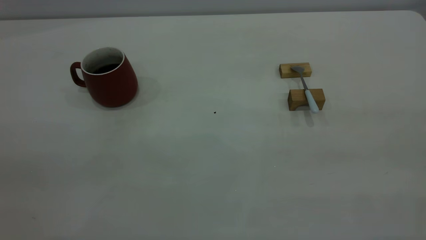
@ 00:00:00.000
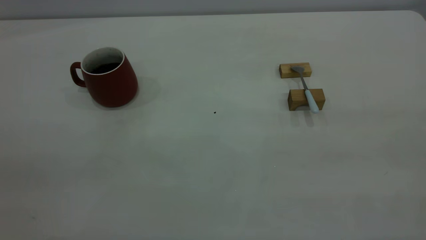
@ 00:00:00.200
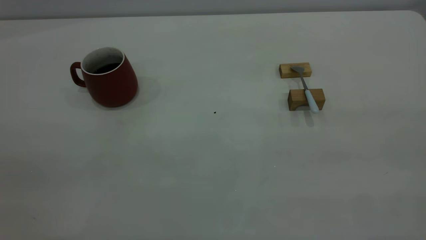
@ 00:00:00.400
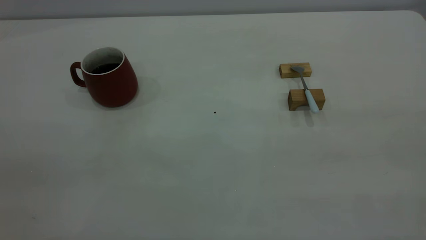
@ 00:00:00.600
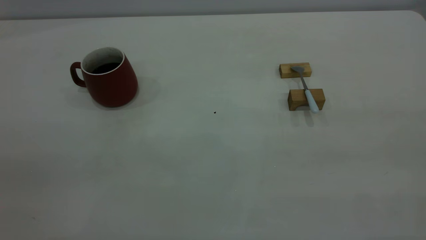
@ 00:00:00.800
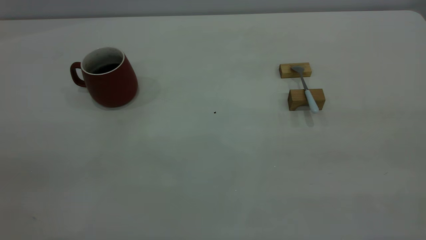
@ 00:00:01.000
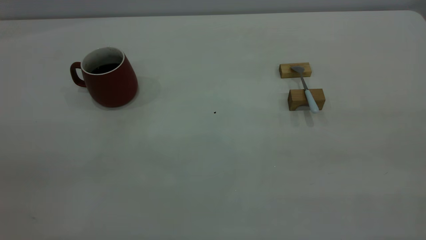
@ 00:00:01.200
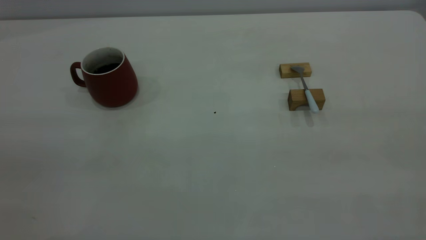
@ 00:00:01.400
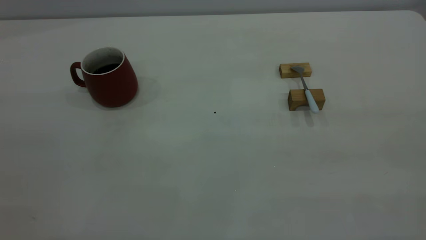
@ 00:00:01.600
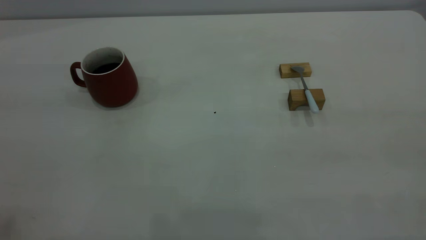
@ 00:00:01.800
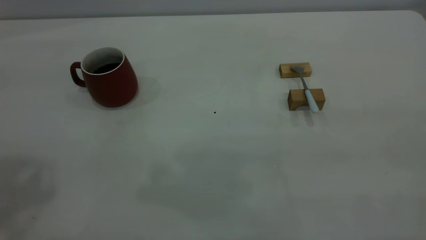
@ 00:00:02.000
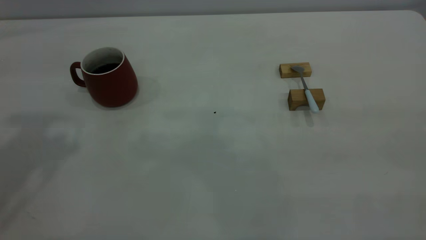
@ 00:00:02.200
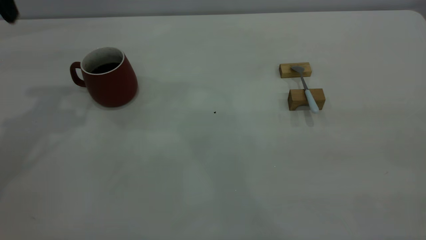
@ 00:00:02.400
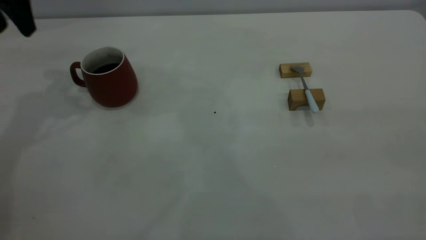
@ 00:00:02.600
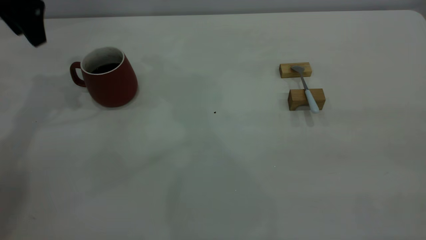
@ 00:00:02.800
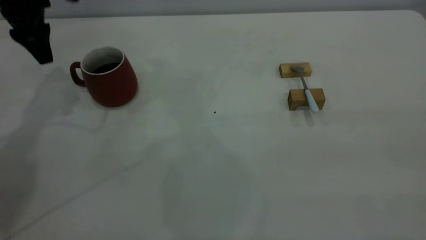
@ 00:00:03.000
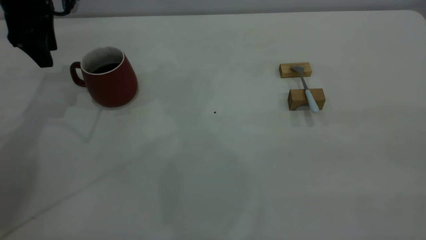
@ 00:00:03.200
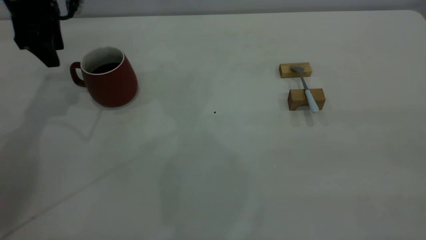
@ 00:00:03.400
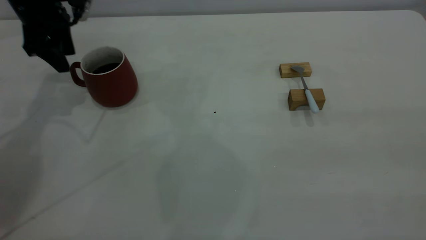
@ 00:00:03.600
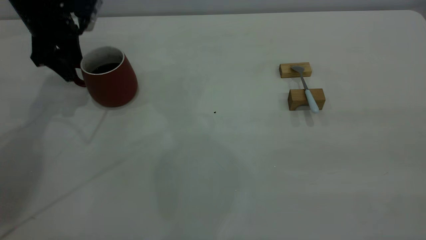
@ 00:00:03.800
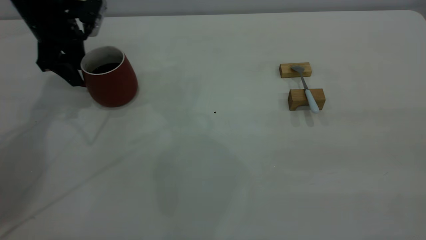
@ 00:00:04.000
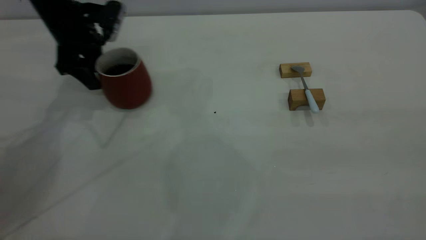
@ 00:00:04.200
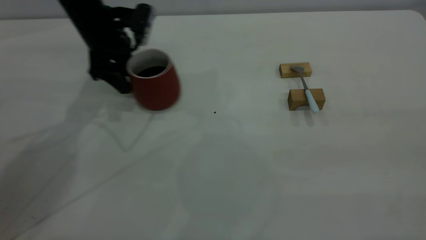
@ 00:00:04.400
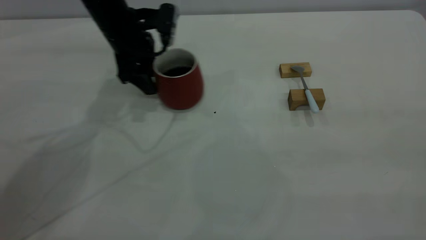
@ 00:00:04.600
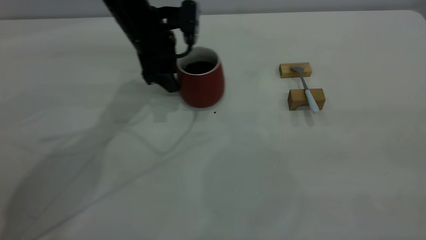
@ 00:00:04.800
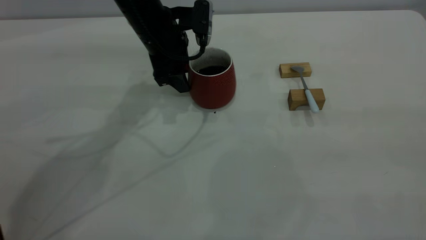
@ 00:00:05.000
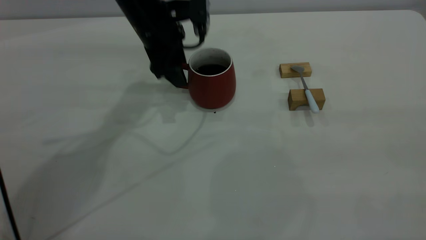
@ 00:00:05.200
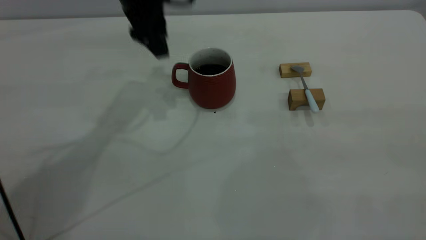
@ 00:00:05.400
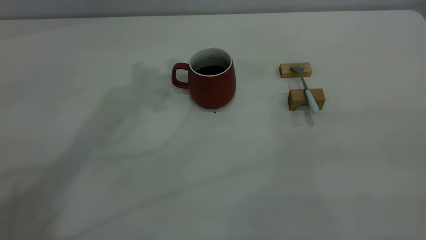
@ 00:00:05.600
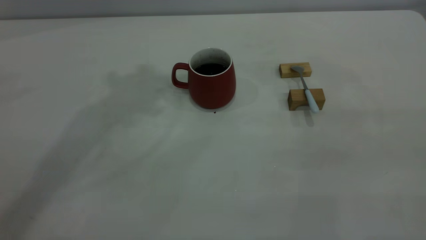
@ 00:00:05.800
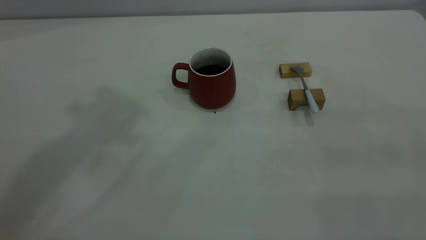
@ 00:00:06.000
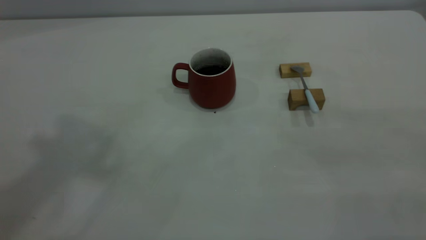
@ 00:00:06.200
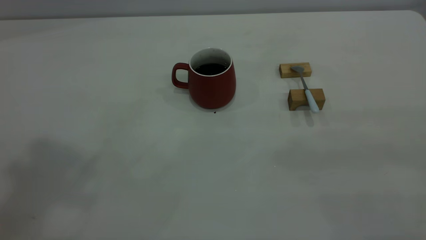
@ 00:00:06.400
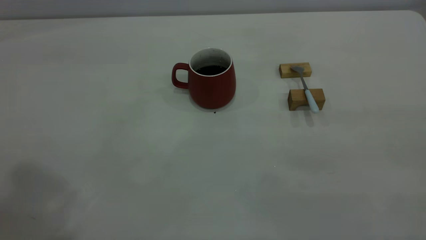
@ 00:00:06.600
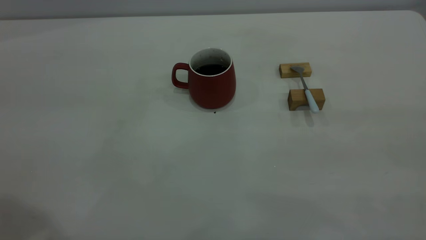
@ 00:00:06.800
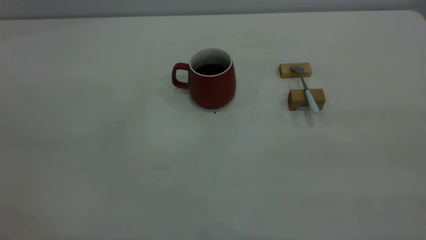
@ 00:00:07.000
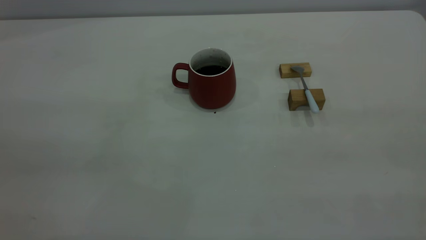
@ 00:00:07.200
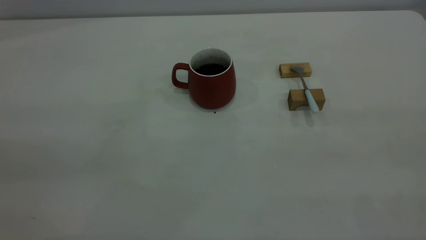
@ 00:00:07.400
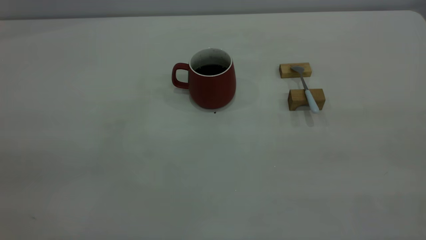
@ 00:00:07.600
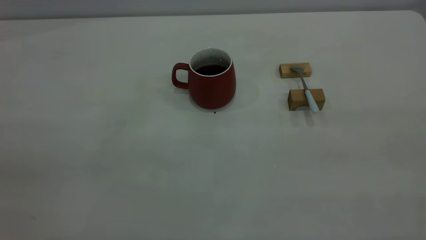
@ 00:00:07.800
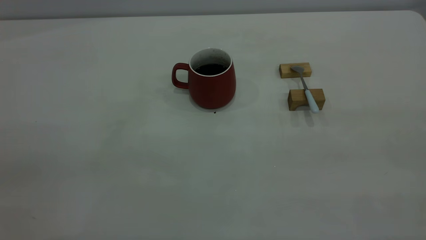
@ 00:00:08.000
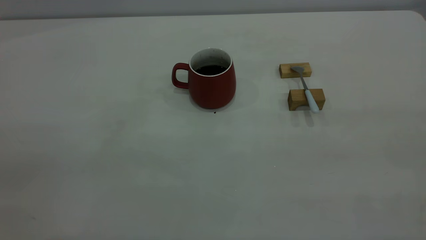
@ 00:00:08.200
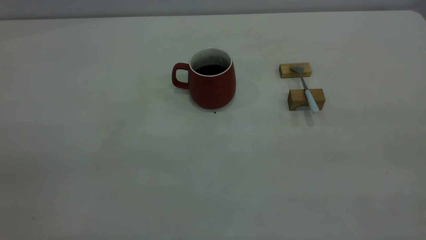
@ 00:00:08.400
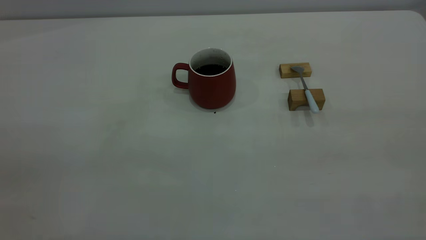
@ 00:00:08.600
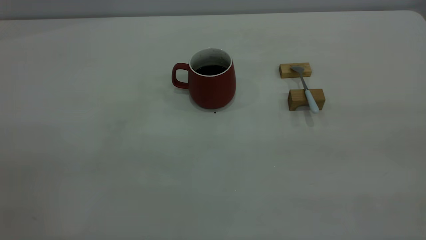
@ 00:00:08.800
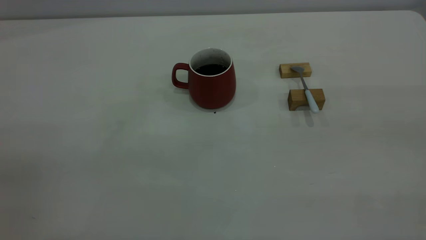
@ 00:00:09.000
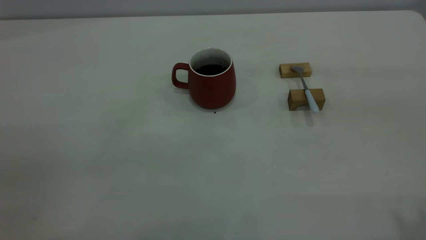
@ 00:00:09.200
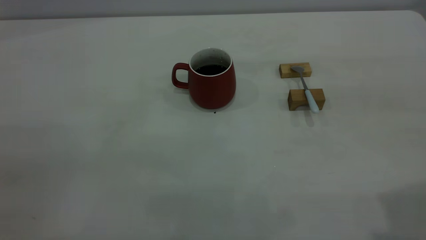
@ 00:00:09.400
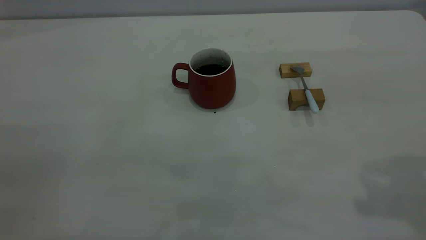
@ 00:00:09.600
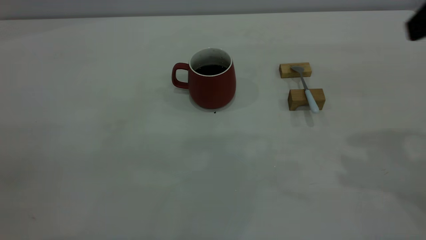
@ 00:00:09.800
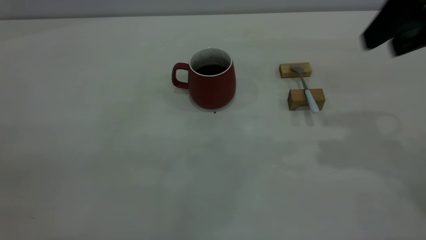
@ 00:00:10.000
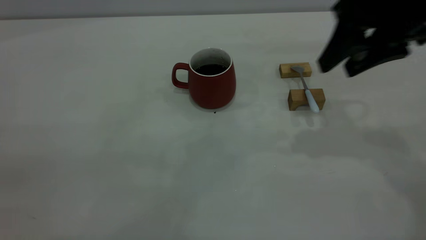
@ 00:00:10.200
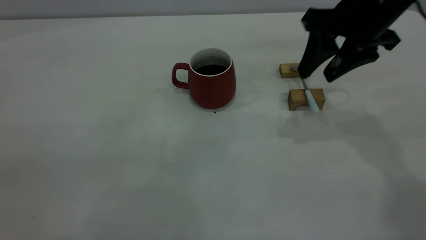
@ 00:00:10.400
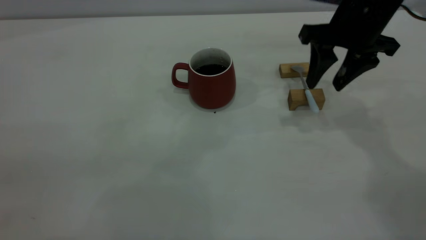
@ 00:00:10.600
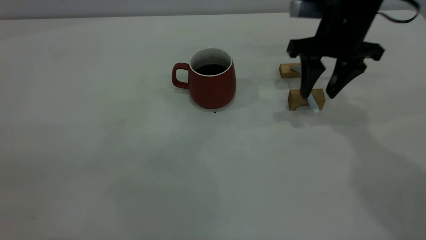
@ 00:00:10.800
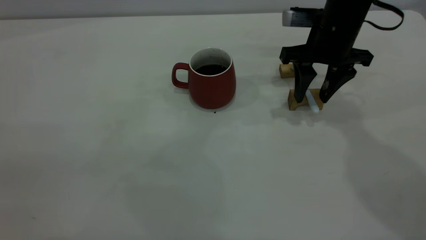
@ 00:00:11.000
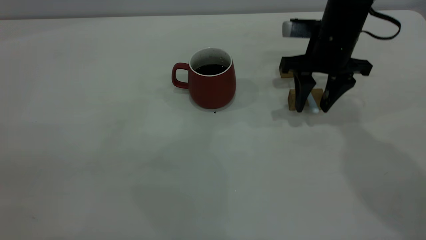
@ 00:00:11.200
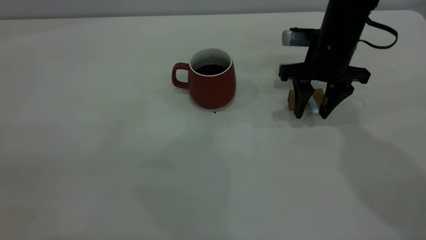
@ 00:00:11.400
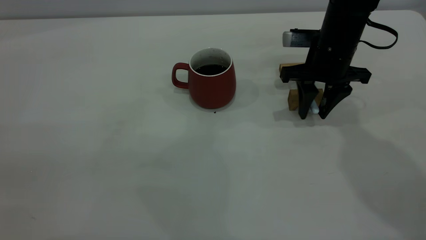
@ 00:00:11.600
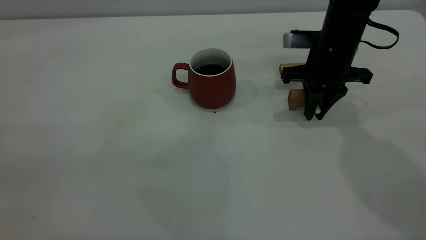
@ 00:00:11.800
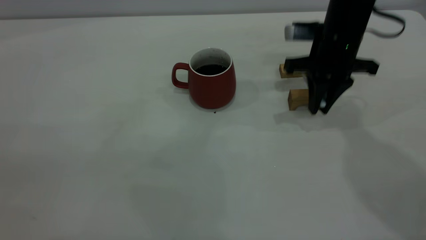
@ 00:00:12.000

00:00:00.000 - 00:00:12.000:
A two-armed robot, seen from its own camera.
Step, 00:00:00.000 - 00:00:05.200: Move the cup with coffee to the center of view.
00:00:01.600 - 00:00:03.000: The left gripper travels forward and downward by about 50 cm.
00:00:03.000 - 00:00:04.400: The left gripper moves to the right and downward, about 15 cm.
00:00:04.400 - 00:00:06.000: The left gripper goes roughly 40 cm upward and backward.
00:00:09.000 - 00:00:10.400: The right gripper moves forward and downward, approximately 35 cm, and opens.
00:00:10.400 - 00:00:12.000: The right gripper goes some 5 cm downward, and closes up.

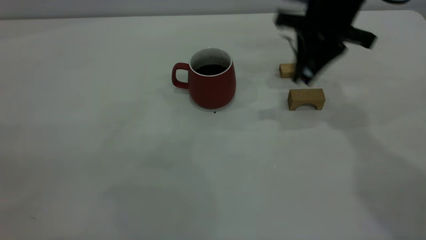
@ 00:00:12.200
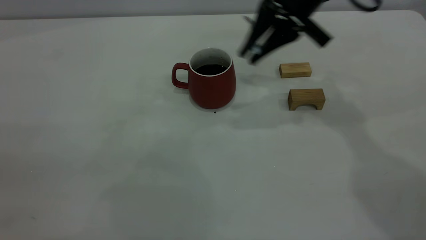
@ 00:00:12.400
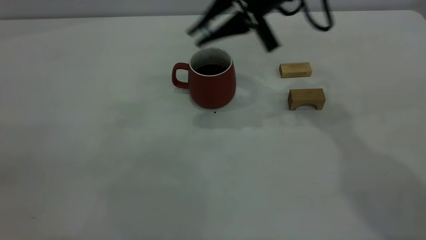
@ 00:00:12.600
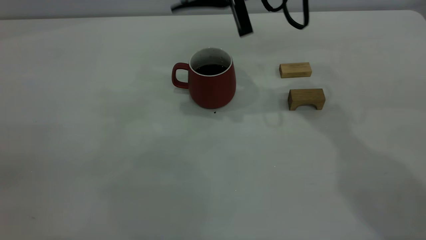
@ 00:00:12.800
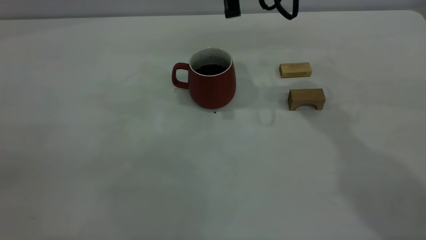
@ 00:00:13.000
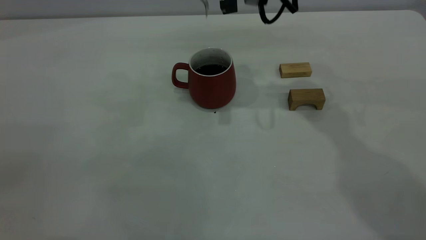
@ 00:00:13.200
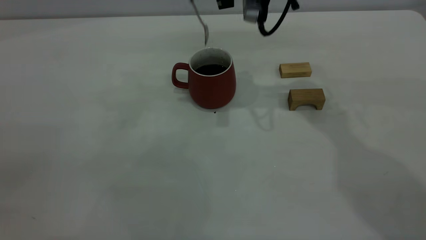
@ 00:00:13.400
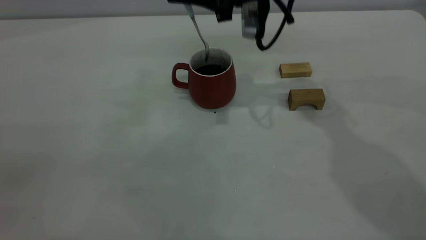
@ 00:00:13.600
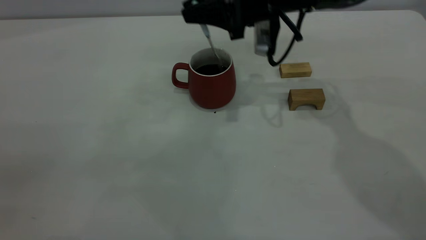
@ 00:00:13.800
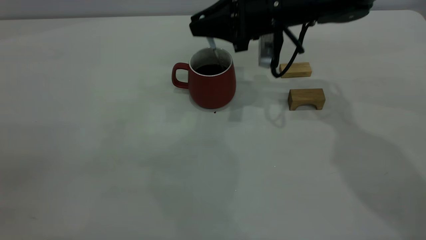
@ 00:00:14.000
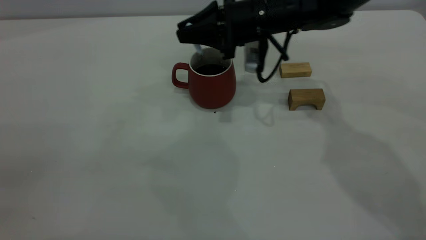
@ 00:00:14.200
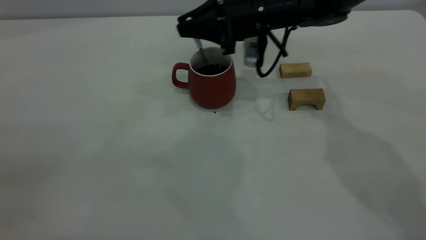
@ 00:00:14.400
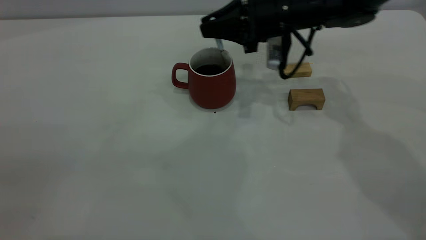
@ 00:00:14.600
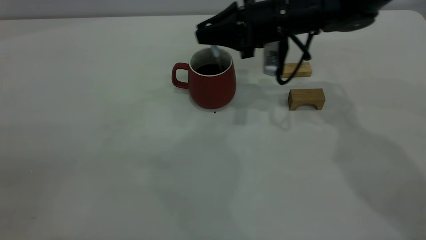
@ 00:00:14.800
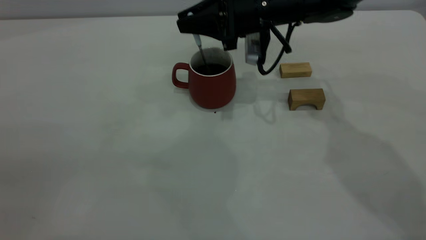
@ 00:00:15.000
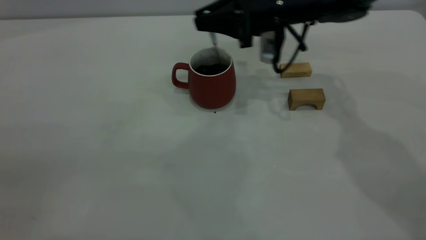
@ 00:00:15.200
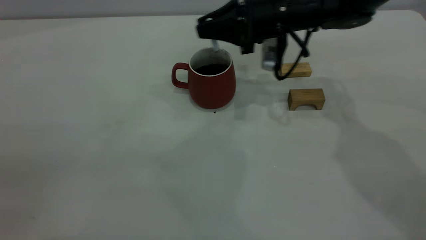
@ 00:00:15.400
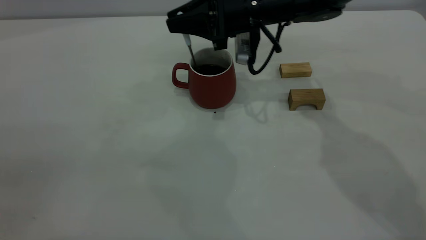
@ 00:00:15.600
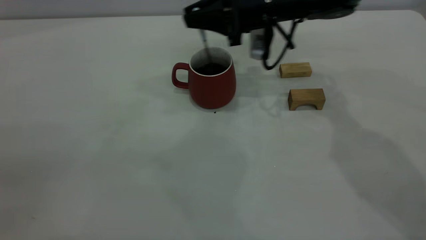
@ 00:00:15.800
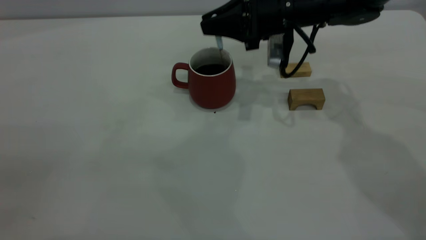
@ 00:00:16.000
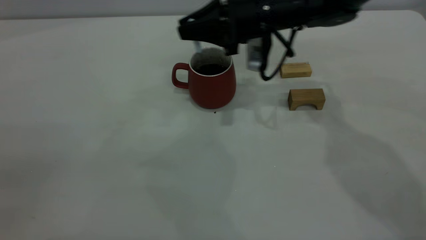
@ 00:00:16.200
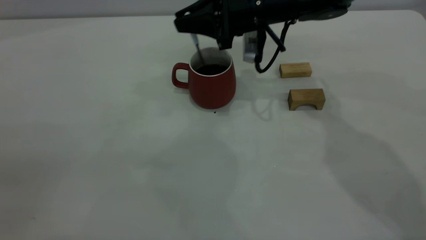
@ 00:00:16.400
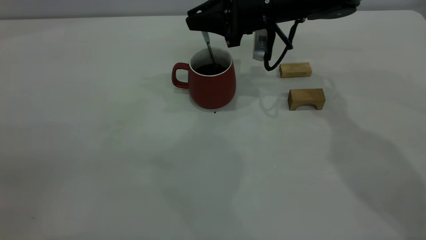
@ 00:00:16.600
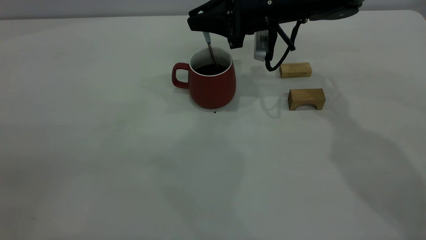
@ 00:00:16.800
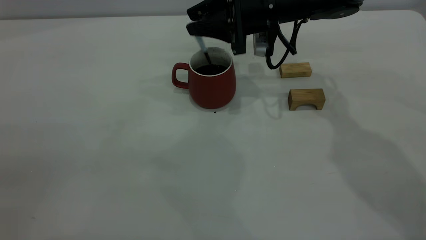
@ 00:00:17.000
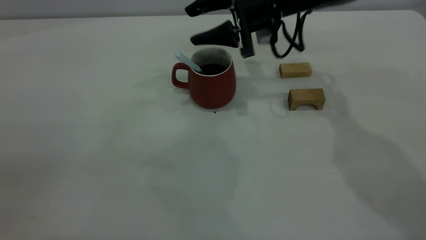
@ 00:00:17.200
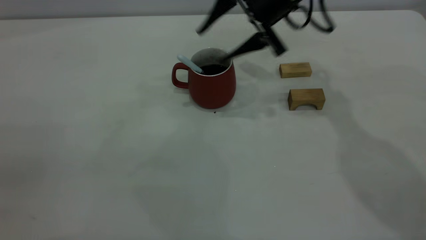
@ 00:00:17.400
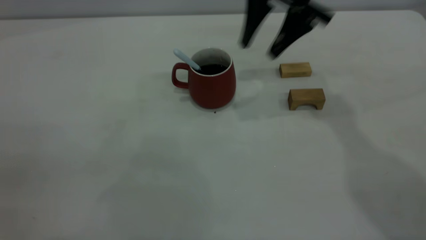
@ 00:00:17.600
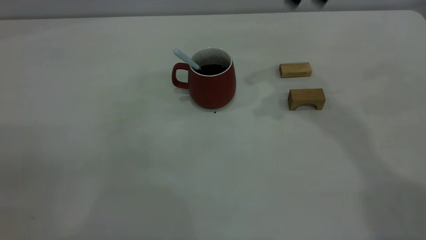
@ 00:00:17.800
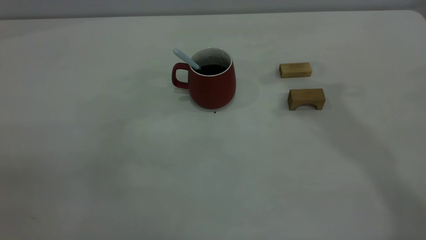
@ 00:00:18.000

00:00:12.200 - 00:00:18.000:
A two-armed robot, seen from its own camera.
Step, 00:00:12.200 - 00:00:17.200: Stir the coffee in the cup.
00:00:12.200 - 00:00:13.600: The right gripper travels to the left by roughly 10 cm.
00:00:13.600 - 00:00:15.000: The right gripper ends up about 5 cm from where it was.
00:00:15.000 - 00:00:16.600: The grippers make only small movements.
00:00:16.600 - 00:00:18.000: The right gripper travels upward by about 25 cm, and opens its fingers.
